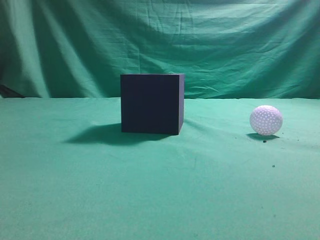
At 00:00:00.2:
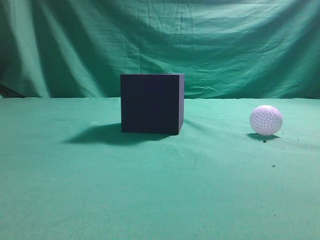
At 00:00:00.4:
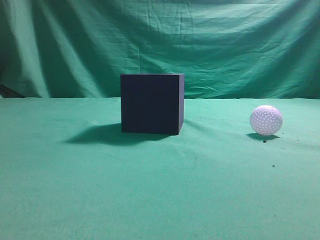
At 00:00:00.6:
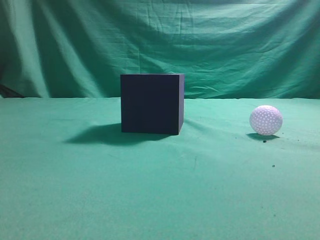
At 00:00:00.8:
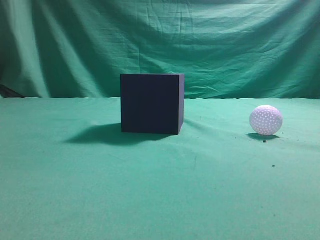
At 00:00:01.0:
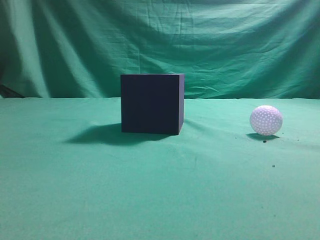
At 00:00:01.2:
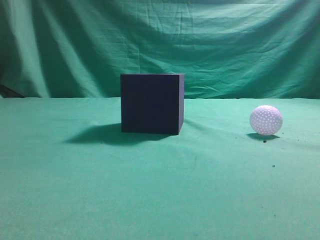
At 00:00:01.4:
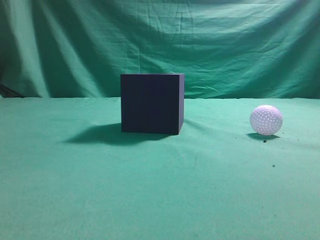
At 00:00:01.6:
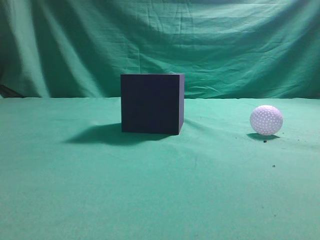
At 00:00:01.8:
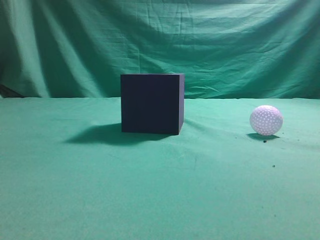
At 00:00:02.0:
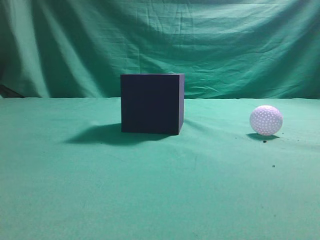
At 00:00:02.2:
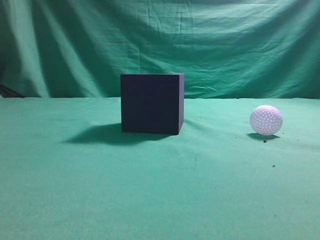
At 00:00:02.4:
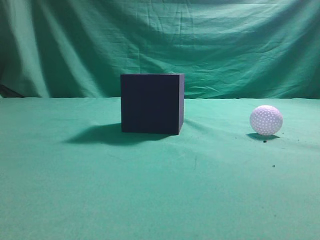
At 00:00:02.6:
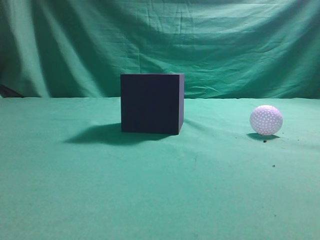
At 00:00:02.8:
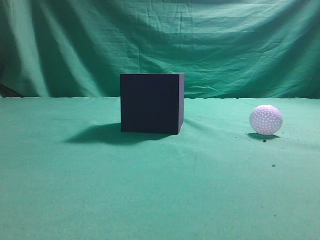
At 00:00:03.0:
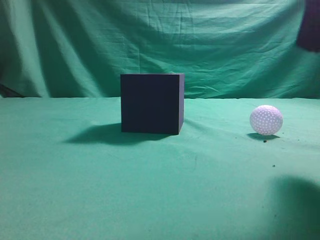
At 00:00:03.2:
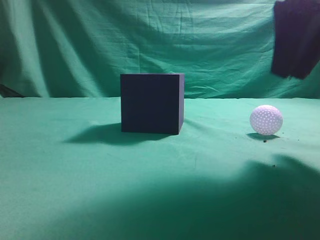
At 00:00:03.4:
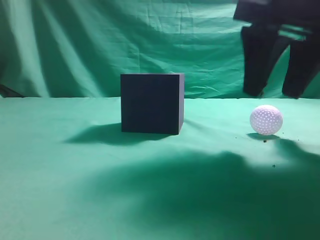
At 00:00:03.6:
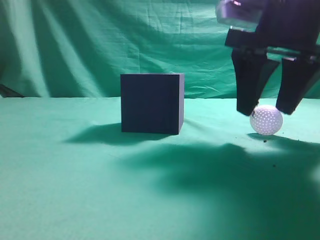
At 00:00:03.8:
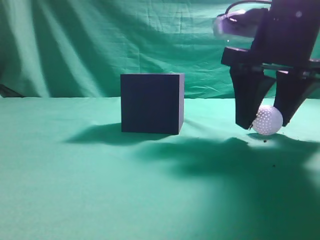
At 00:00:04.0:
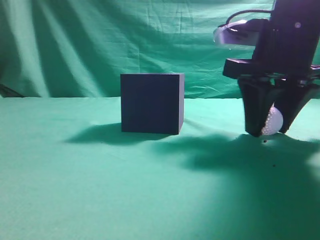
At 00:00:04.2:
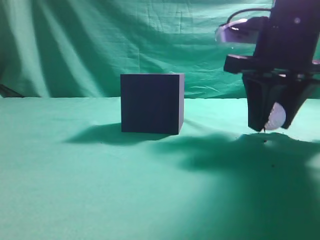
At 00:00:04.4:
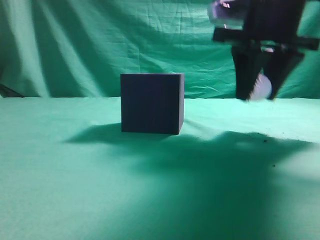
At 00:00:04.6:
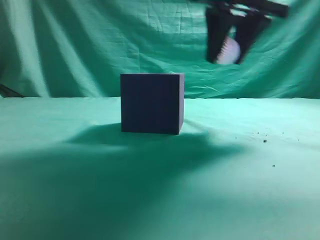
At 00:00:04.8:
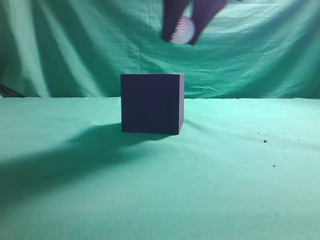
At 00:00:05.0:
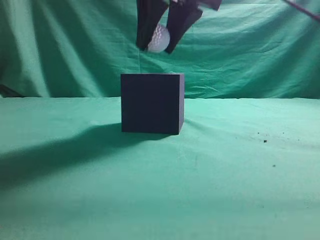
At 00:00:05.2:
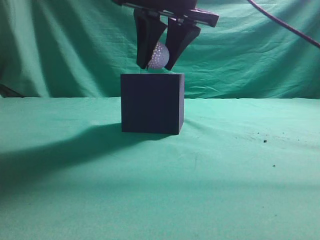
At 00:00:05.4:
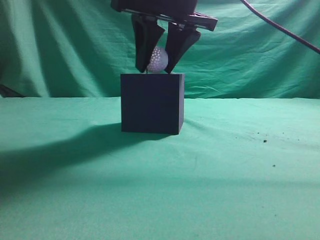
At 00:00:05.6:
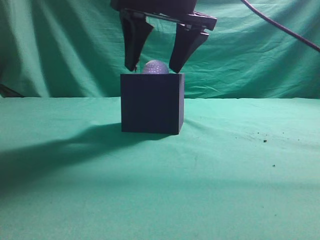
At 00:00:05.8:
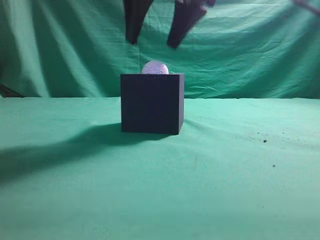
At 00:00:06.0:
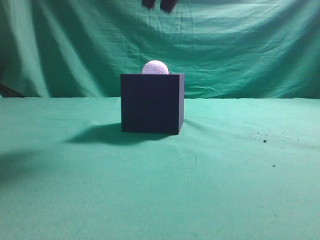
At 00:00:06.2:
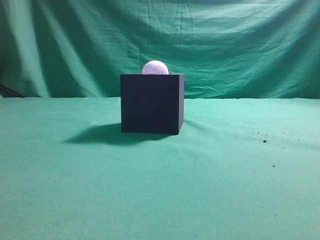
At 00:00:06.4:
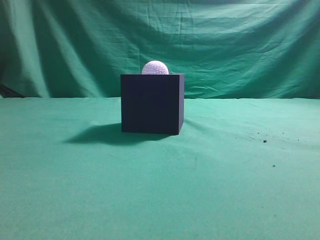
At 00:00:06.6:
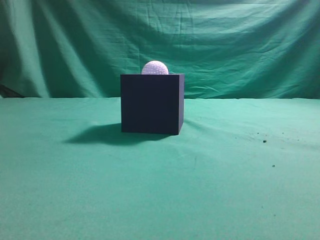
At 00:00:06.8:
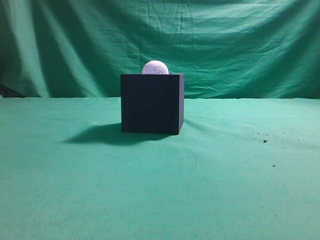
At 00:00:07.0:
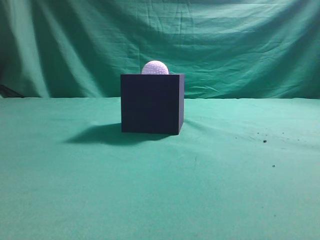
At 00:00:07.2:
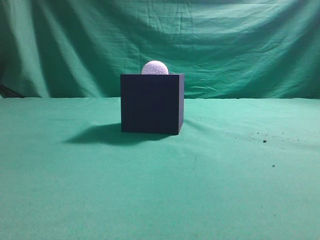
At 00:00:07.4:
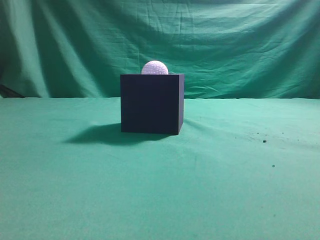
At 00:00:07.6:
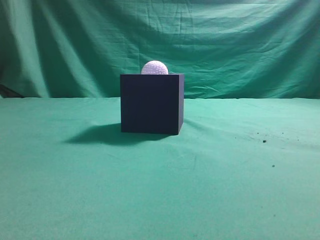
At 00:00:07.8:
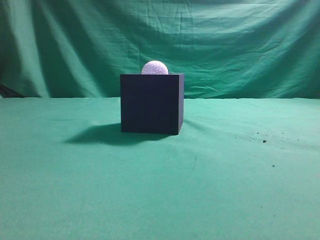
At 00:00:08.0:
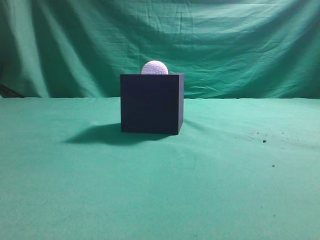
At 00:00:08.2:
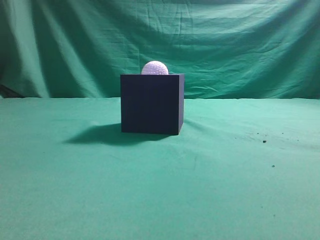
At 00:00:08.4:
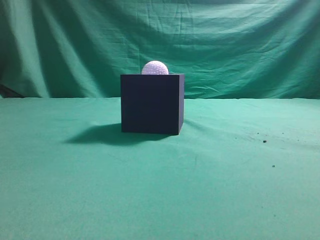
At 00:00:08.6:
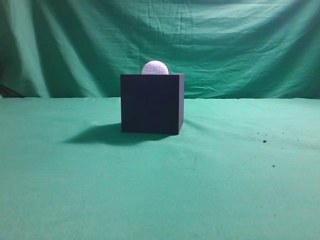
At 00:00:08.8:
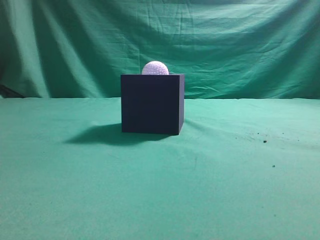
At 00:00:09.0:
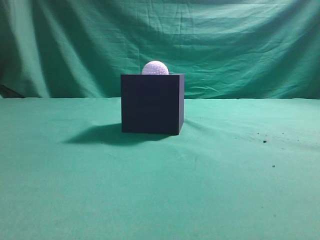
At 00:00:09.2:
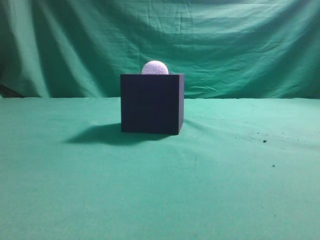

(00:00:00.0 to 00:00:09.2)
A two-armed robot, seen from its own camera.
Task of the whole recording: Pick up the ball and place it in the circular groove above the cube.
Step, 00:00:00.0 - 00:00:04.4: Grasp the sphere on the table.
Step, 00:00:04.6 - 00:00:05.8: Place the sphere into the sphere-shaped recess.
00:00:01.6 - 00:00:03.0: The right gripper heads forward and to the left, covering about 20 cm.
00:00:03.0 - 00:00:04.6: The right gripper moves forward and to the left, approximately 15 cm, and opens its fingers.
00:00:04.6 - 00:00:06.2: The right gripper is displaced upward and to the left by roughly 15 cm, and closes its fingers.

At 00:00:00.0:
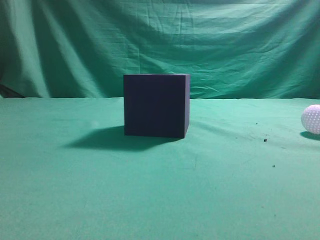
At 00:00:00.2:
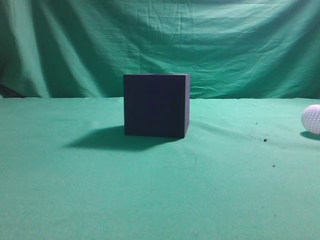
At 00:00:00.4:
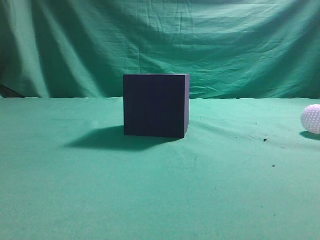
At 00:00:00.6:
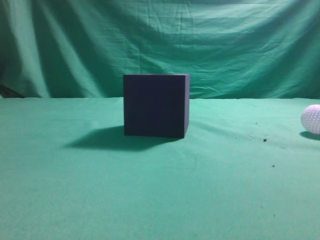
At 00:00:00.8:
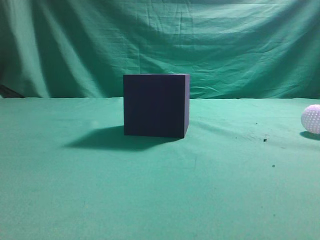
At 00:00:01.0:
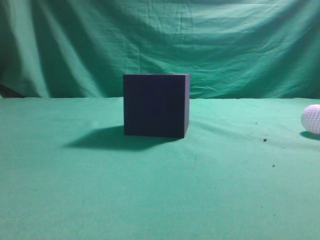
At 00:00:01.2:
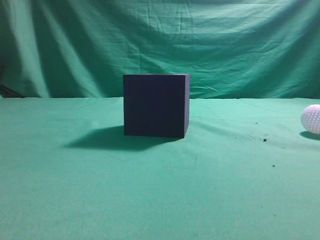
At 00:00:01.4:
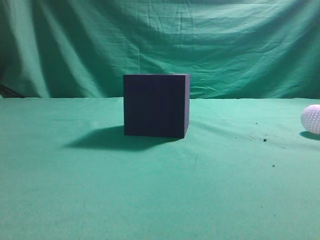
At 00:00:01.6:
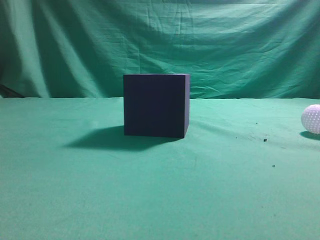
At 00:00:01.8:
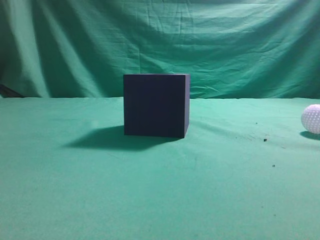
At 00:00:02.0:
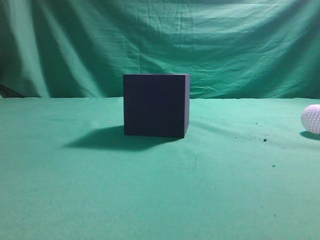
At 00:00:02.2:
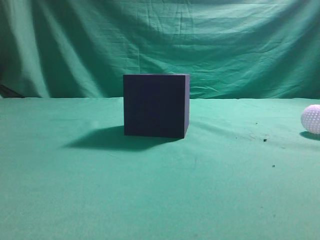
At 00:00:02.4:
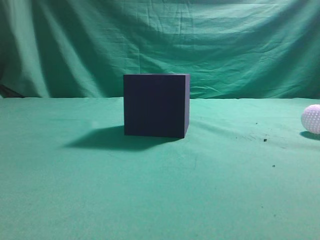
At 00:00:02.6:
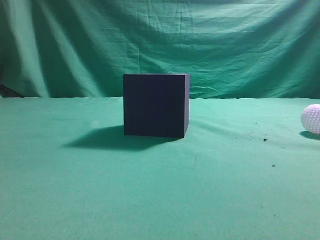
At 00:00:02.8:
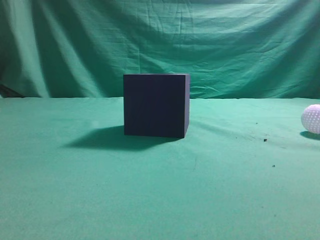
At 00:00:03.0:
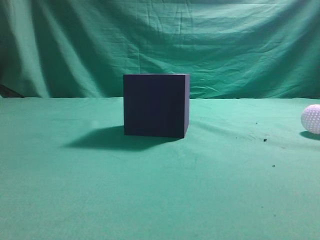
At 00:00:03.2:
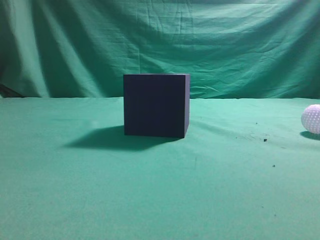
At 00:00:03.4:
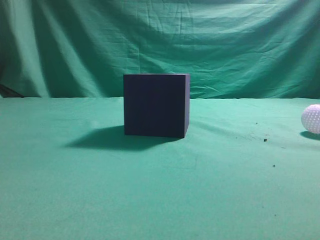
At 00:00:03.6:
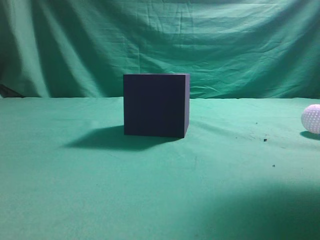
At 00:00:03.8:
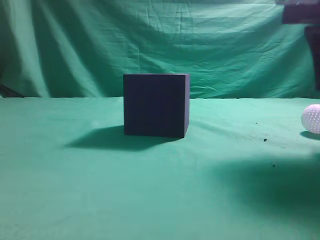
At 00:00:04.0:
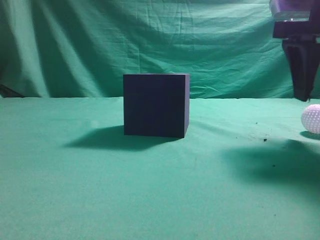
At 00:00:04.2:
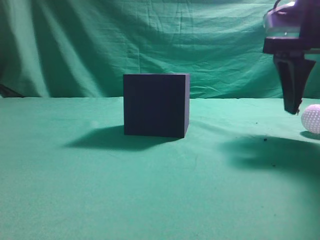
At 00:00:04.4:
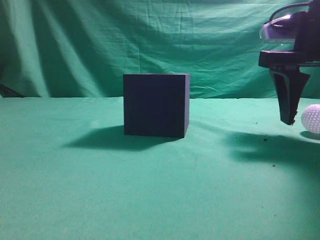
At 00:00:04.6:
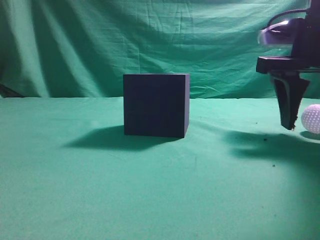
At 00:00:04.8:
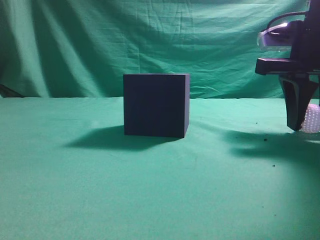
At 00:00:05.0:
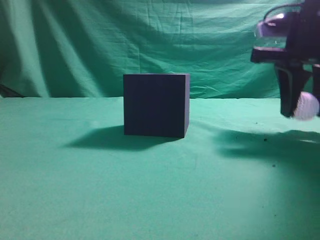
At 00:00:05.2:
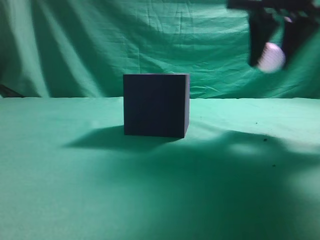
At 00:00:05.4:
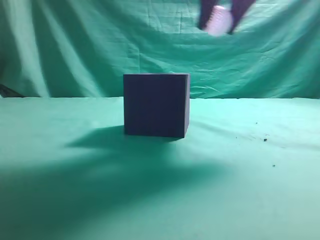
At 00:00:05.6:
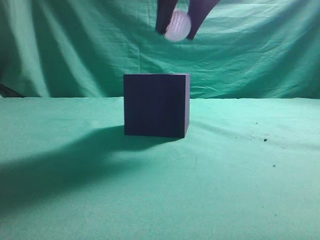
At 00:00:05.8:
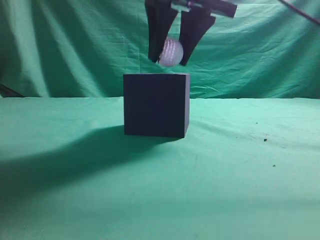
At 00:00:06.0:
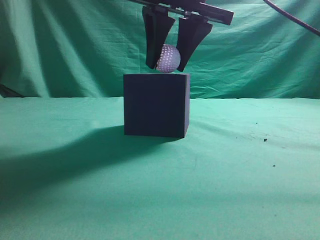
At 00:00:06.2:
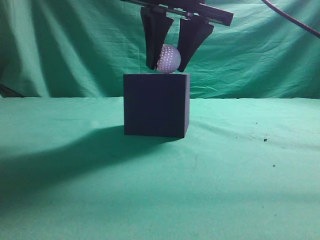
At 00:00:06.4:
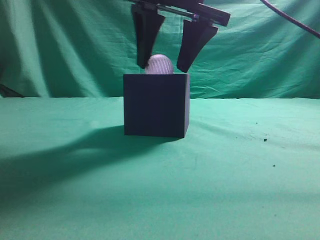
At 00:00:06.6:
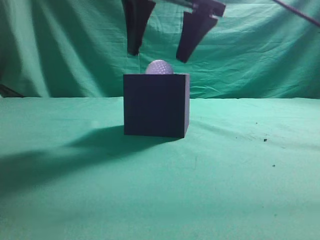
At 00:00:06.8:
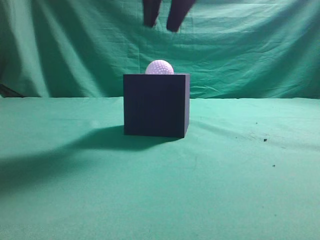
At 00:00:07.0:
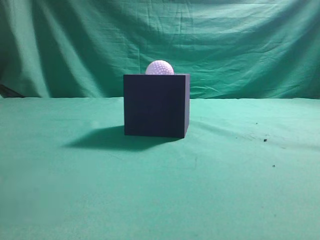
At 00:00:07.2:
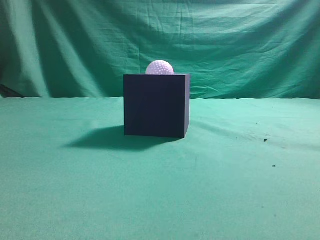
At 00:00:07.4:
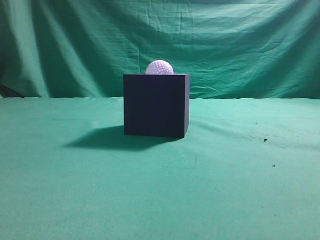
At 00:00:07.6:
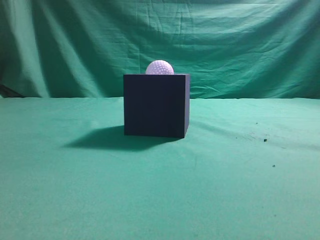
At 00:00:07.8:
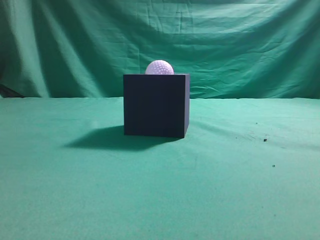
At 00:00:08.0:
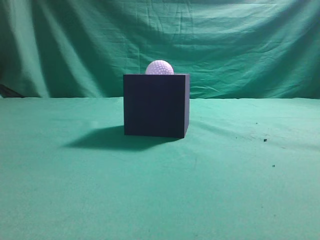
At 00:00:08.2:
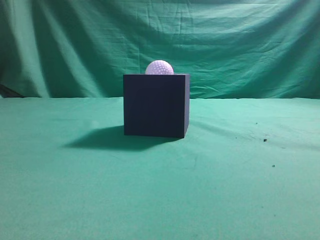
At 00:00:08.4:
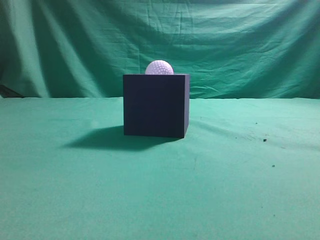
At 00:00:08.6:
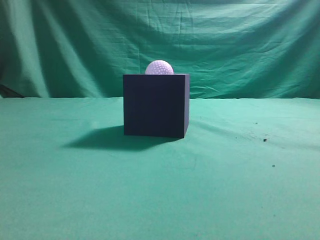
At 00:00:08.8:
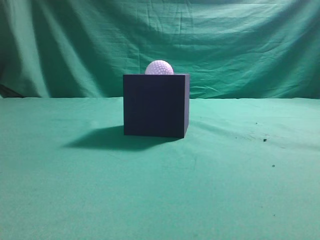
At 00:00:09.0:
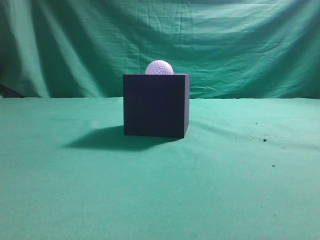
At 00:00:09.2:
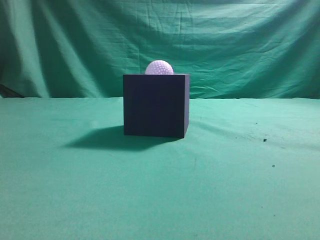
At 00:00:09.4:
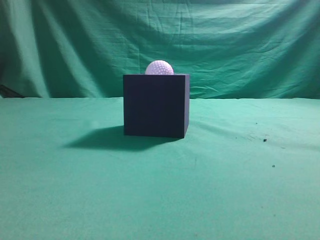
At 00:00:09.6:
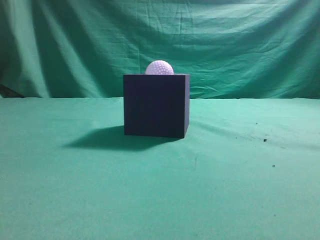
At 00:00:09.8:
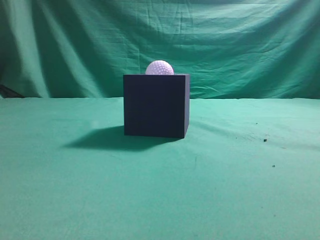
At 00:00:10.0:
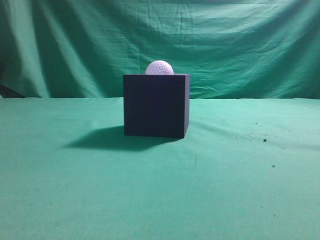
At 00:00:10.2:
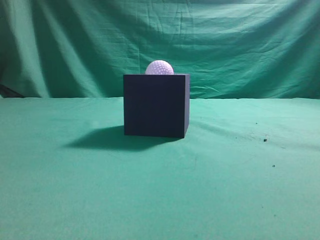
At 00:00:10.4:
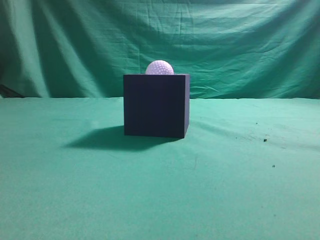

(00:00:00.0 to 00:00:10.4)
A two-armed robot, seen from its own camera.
Task of the whole recording: Pick up the ball and place it in the circular groove above the cube.
Step, 00:00:00.0 - 00:00:05.0: Grasp the sphere on the table.
Step, 00:00:05.2 - 00:00:06.6: Place the sphere into the sphere-shaped recess.
00:00:03.0 - 00:00:04.4: The right gripper is displaced forward, downward and to the left by some 20 cm, and opens up.
00:00:04.4 - 00:00:06.0: The right gripper moves to the left and upward, roughly 20 cm, and closes.
00:00:06.0 - 00:00:07.4: The right gripper shifts approximately 20 cm upward, backward and to the right, and closes.
